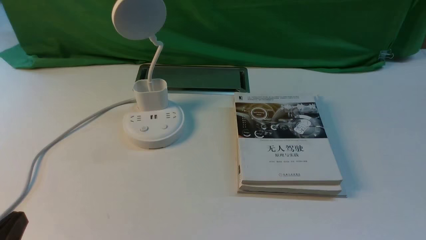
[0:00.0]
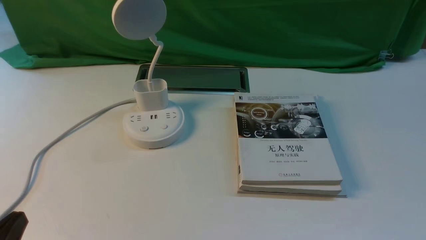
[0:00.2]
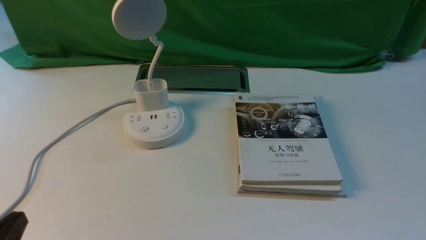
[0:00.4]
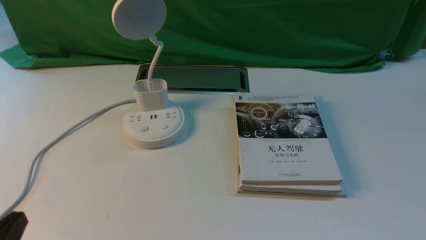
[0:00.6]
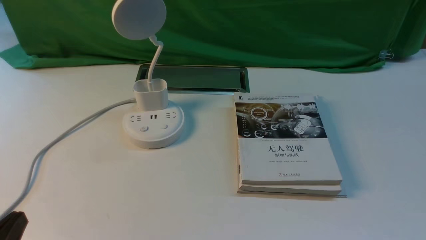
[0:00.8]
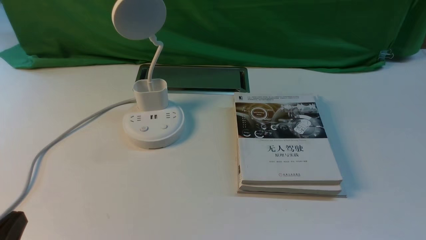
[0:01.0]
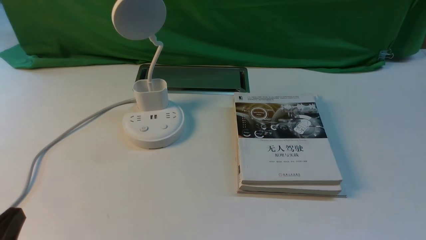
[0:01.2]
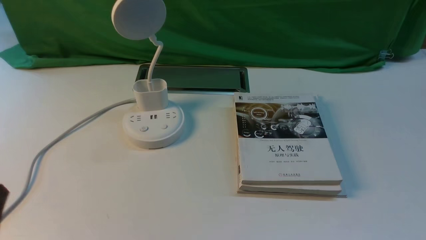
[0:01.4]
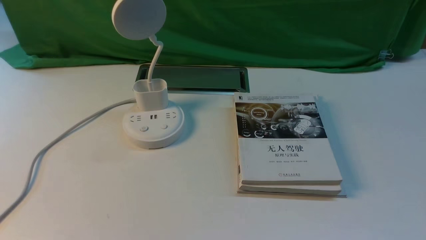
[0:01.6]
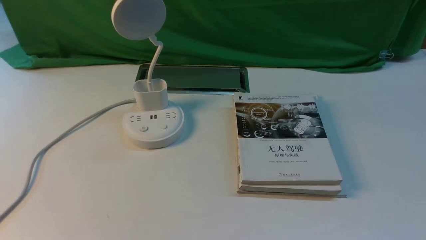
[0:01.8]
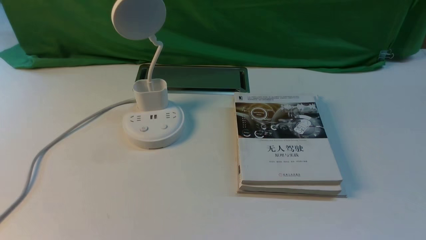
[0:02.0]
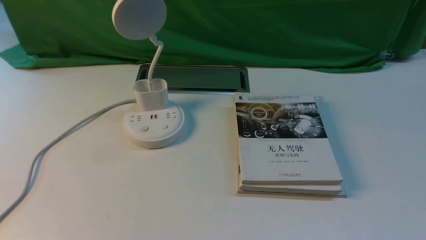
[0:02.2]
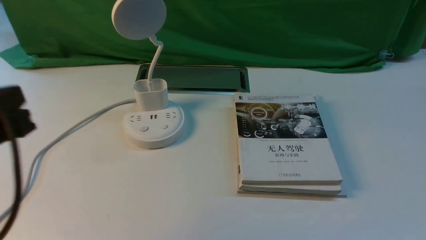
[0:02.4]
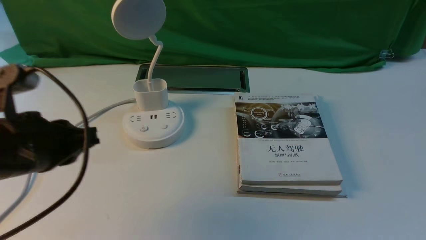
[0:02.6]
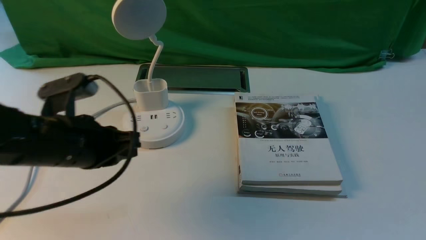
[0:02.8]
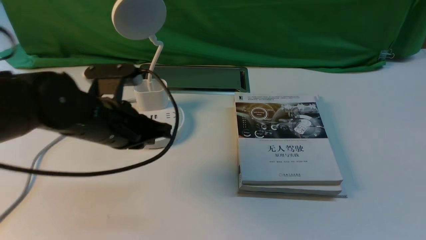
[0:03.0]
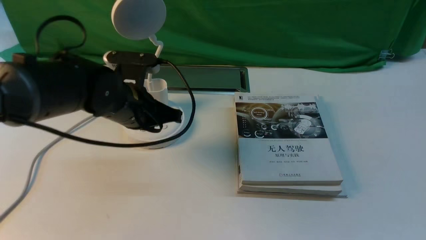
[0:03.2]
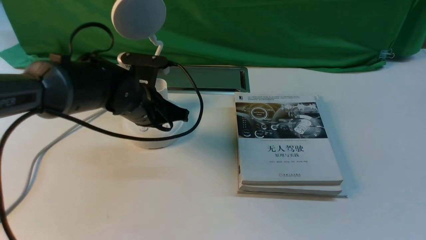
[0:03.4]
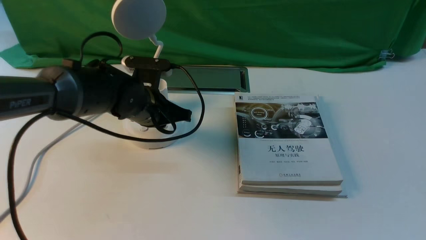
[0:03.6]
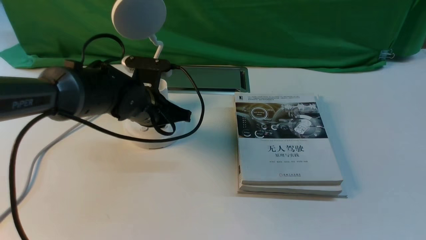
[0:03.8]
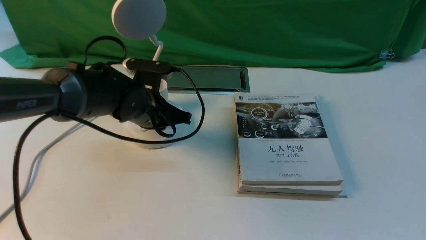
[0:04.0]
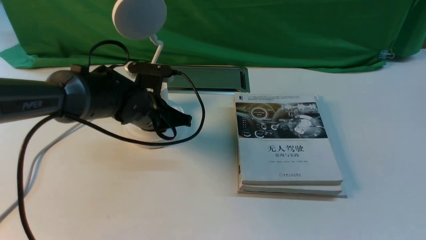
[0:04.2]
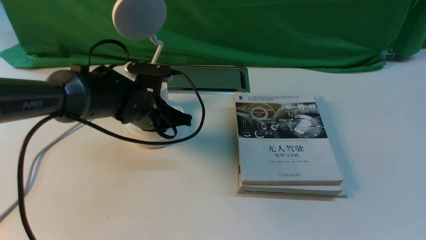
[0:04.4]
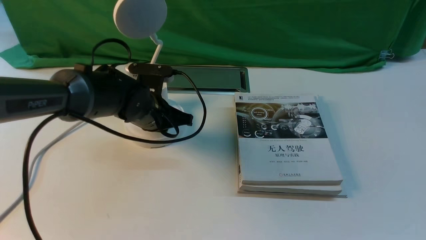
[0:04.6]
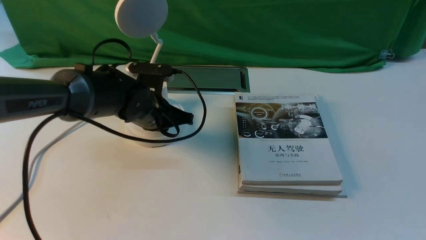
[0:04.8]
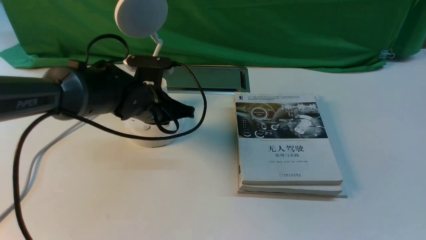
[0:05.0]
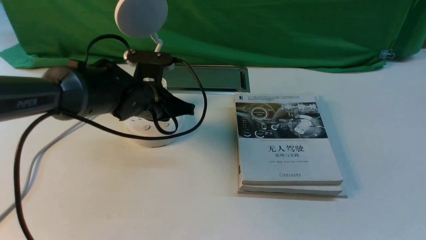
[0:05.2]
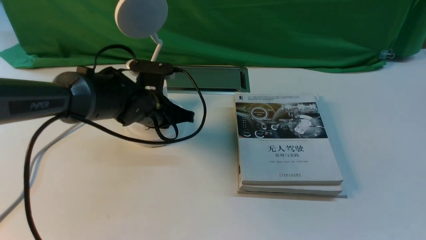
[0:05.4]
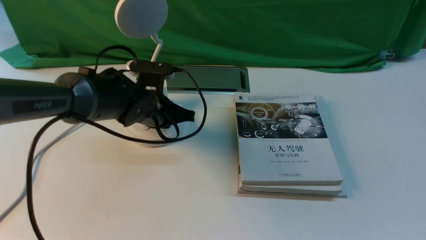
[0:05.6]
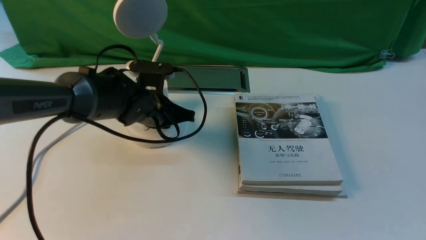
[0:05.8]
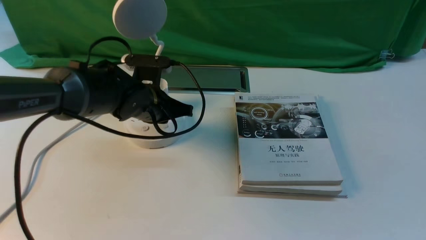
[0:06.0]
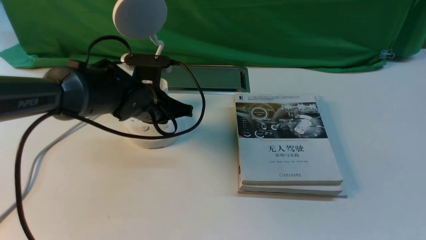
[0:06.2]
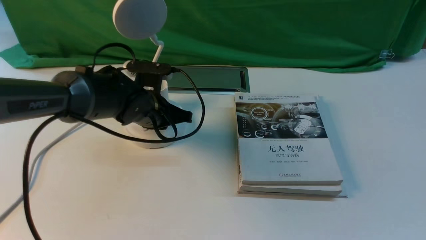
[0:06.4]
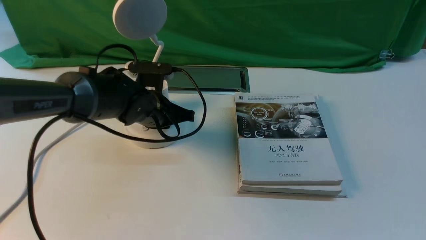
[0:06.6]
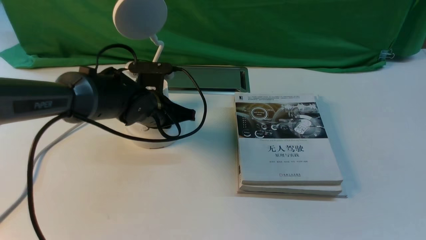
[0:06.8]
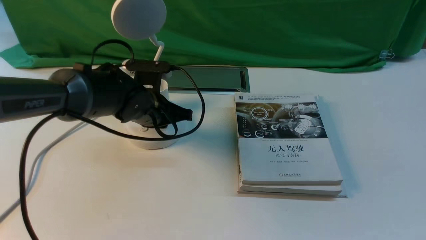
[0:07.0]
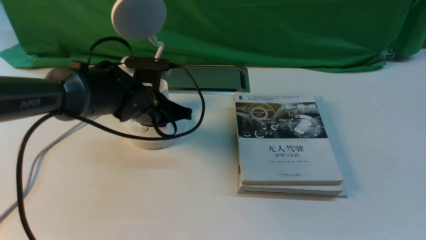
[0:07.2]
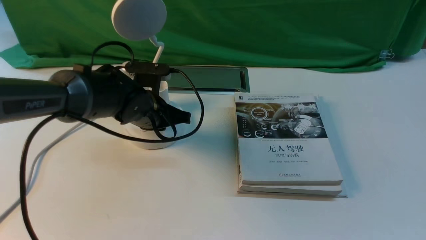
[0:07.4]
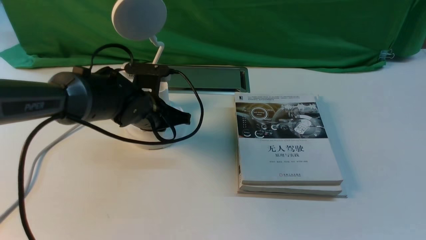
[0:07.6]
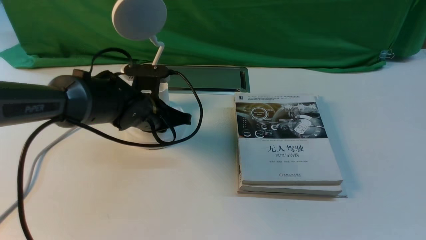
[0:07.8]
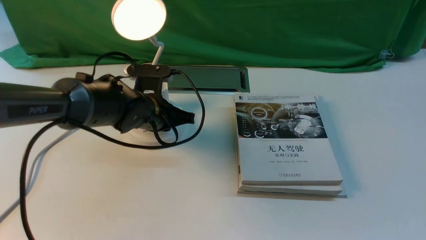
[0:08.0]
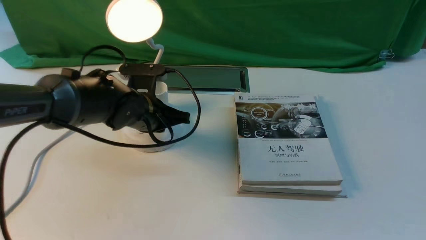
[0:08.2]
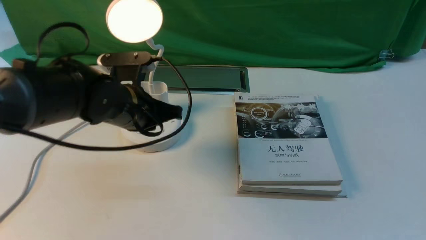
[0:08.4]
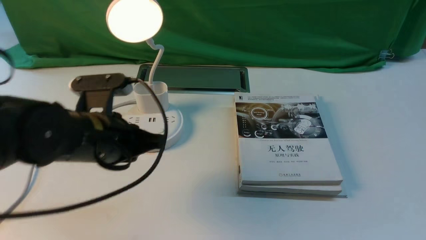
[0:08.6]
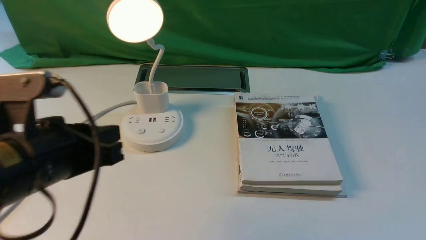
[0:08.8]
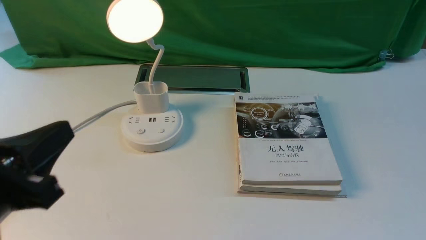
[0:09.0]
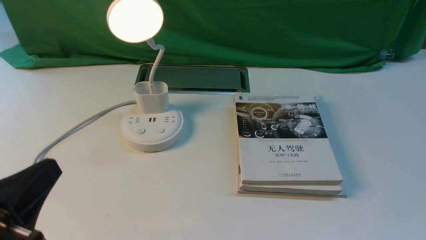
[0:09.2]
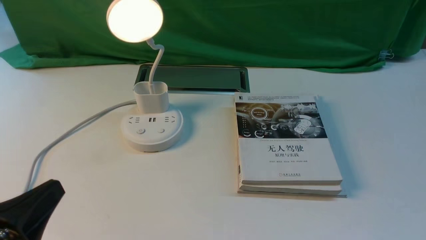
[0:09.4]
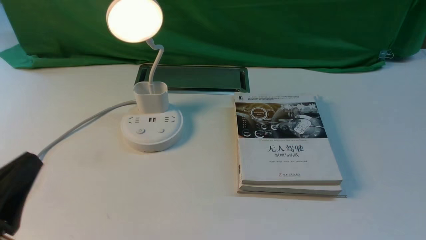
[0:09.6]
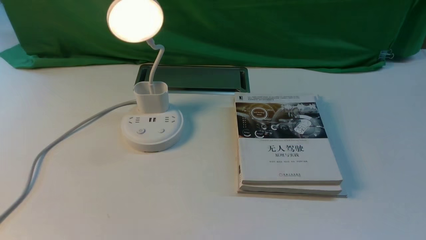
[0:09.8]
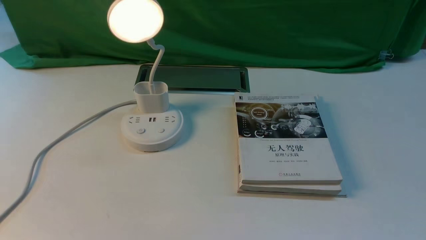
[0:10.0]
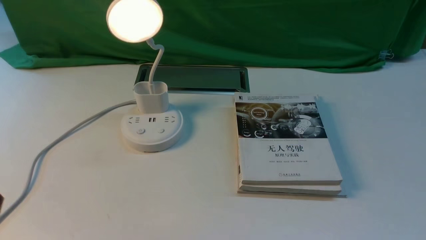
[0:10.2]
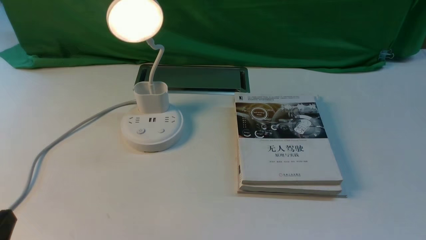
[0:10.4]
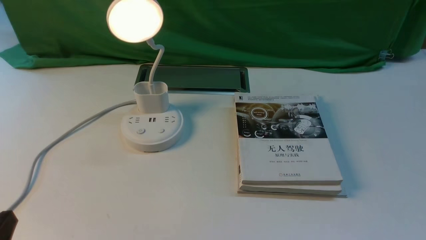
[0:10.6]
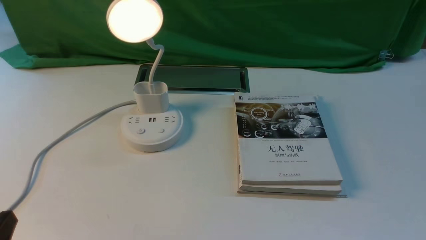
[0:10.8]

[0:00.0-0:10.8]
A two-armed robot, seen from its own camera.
Step, 0:00.0 to 0:08.6: use the left arm to press the button switch on the lamp holder.
0:01.6 to 0:03.0: The left gripper goes approximately 25 cm forward and to the right, and closes its fingers.
0:03.0 to 0:04.6: The left gripper goes roughly 15 cm forward, downward and to the right.
0:04.6 to 0:07.8: There are only small adjustments of the grippers.
0:07.8 to 0:09.2: The left gripper moves backward and to the left, some 30 cm.
0:09.2 to 0:10.8: The left gripper moves downward, some 10 cm.

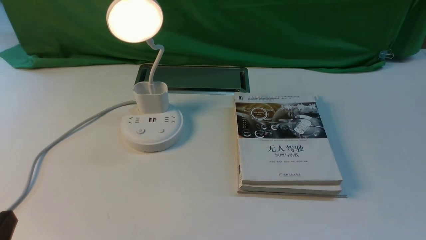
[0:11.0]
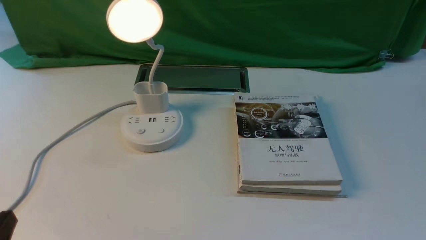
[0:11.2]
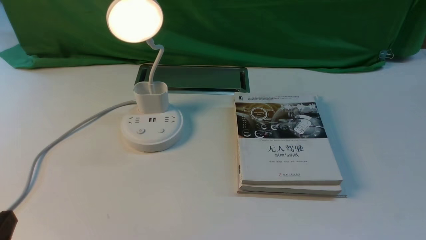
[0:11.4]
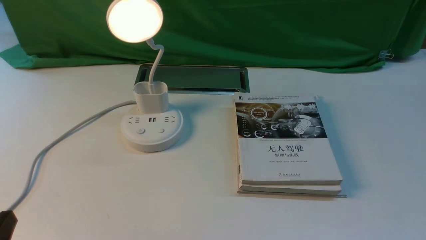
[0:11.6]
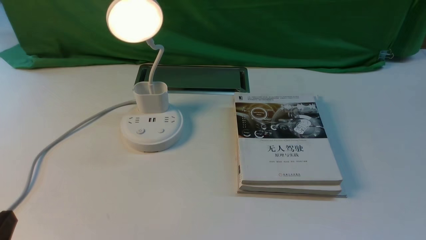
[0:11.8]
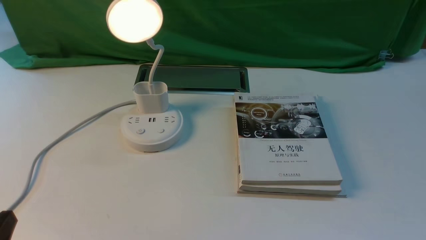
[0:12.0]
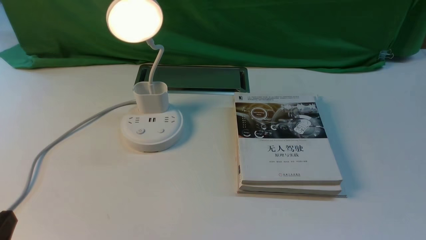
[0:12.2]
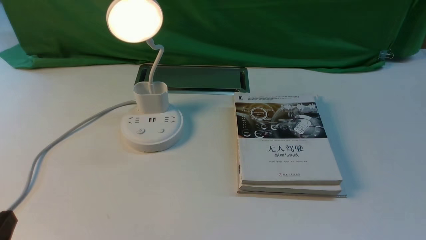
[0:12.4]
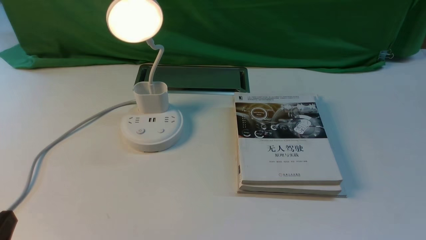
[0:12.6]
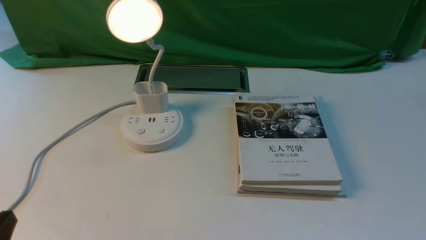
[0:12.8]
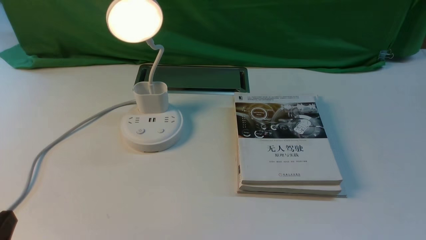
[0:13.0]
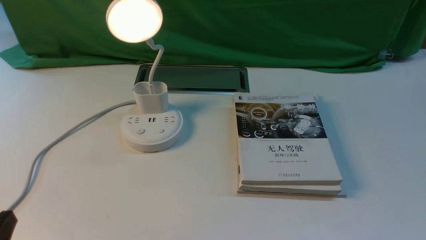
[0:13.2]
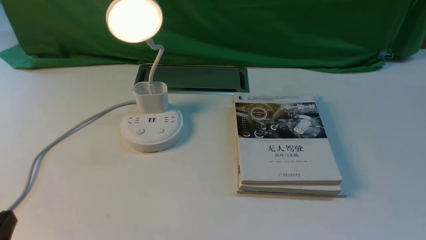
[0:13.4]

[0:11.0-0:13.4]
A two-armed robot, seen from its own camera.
0:11.0 to 0:13.4: Both grippers stay about where they are.
